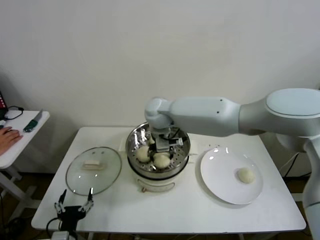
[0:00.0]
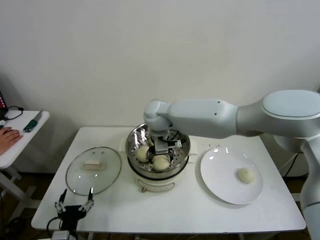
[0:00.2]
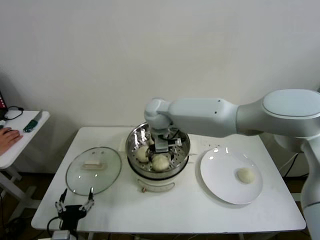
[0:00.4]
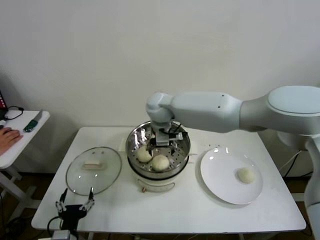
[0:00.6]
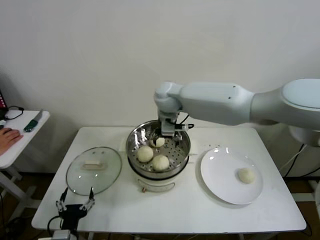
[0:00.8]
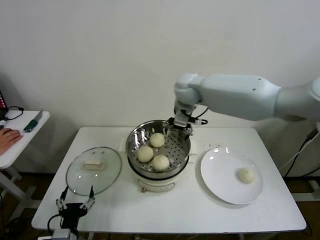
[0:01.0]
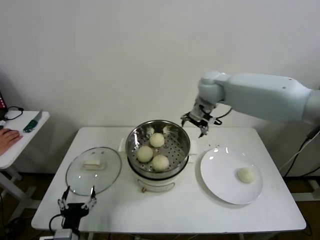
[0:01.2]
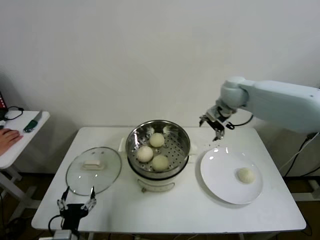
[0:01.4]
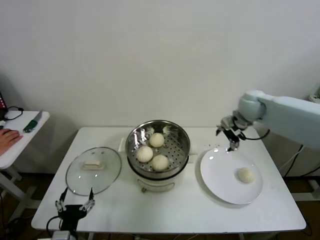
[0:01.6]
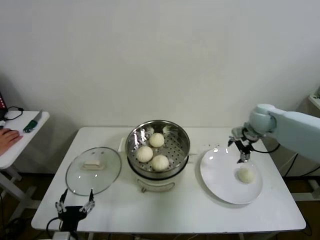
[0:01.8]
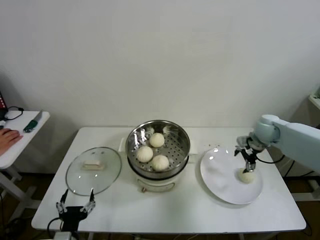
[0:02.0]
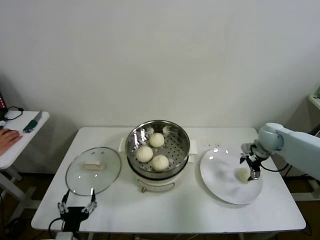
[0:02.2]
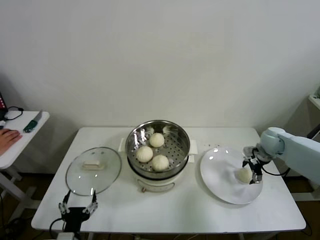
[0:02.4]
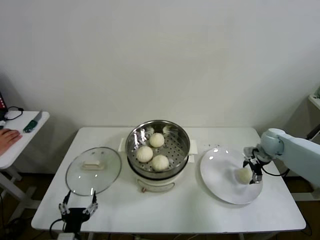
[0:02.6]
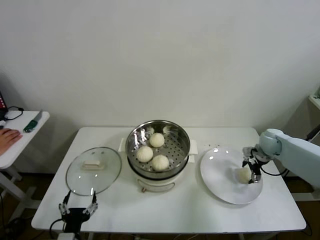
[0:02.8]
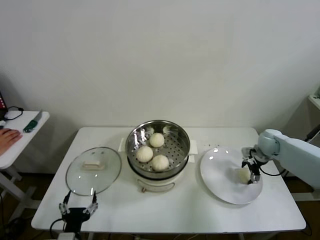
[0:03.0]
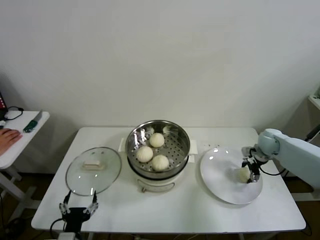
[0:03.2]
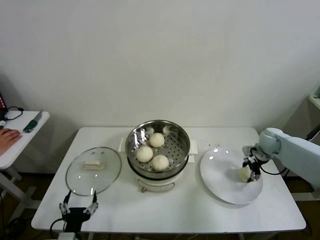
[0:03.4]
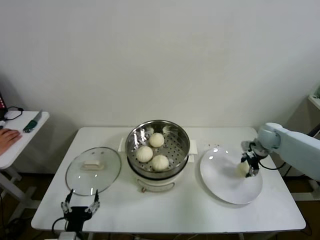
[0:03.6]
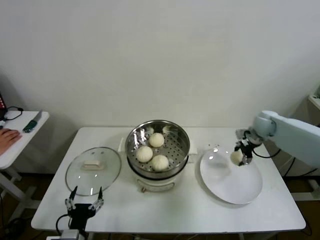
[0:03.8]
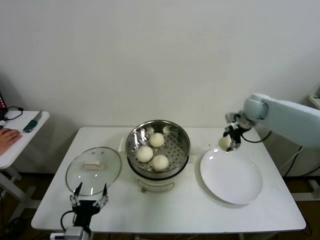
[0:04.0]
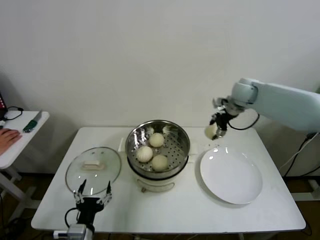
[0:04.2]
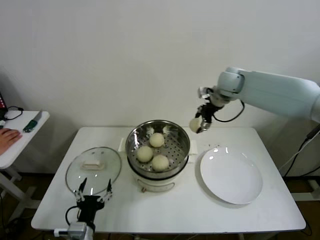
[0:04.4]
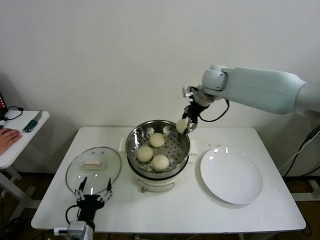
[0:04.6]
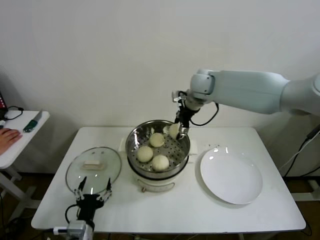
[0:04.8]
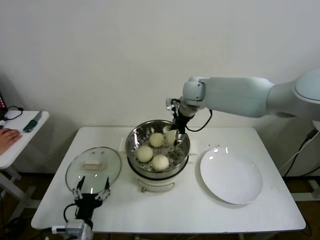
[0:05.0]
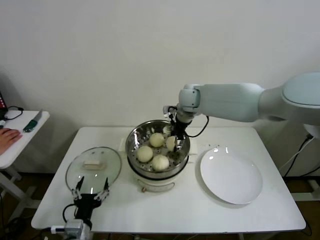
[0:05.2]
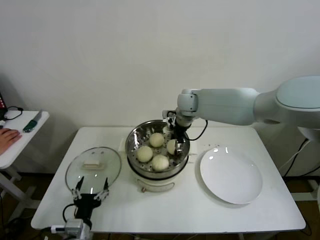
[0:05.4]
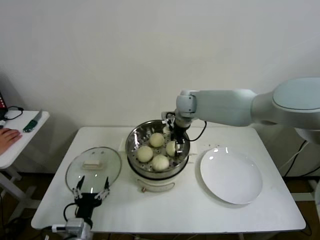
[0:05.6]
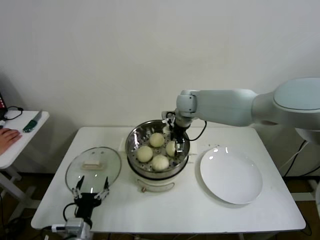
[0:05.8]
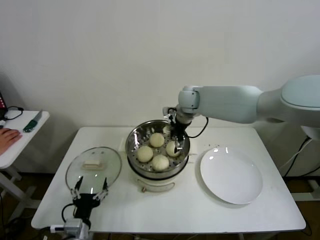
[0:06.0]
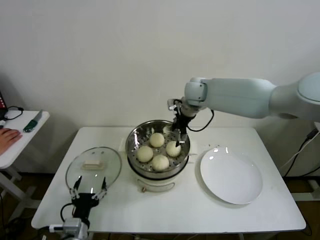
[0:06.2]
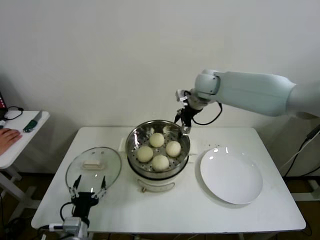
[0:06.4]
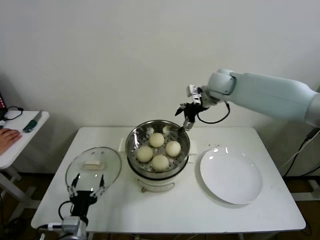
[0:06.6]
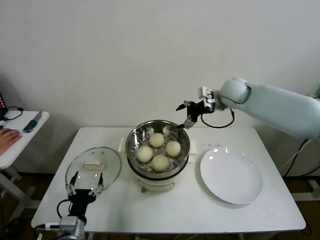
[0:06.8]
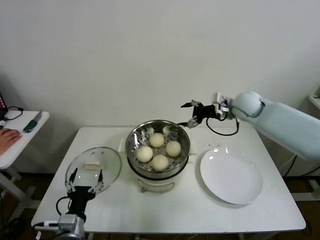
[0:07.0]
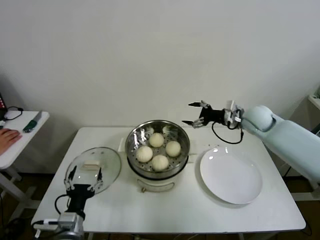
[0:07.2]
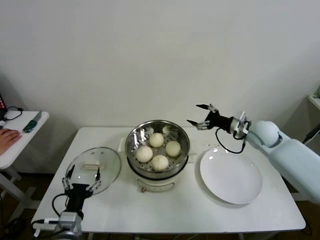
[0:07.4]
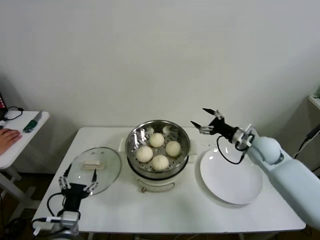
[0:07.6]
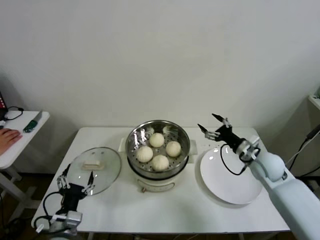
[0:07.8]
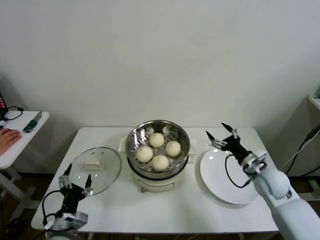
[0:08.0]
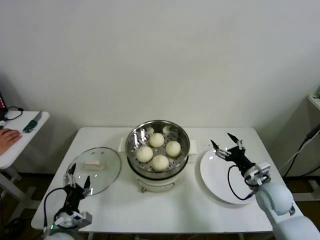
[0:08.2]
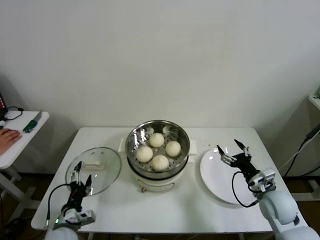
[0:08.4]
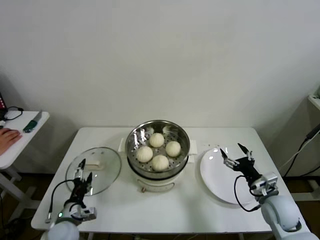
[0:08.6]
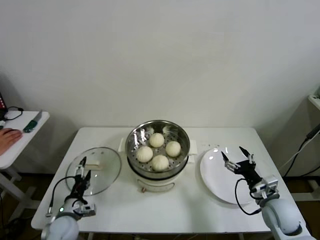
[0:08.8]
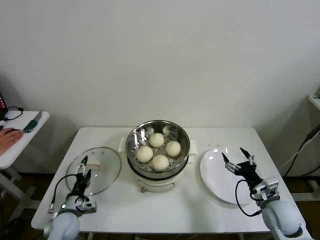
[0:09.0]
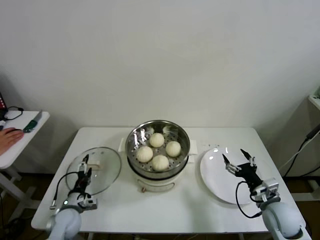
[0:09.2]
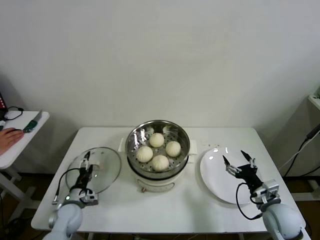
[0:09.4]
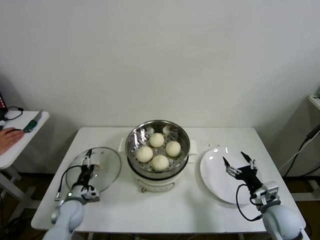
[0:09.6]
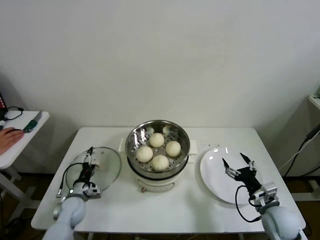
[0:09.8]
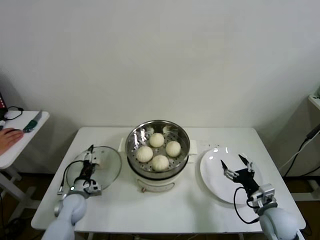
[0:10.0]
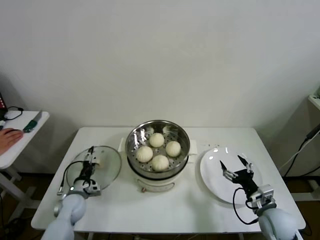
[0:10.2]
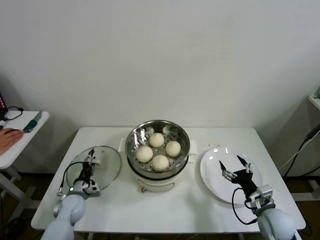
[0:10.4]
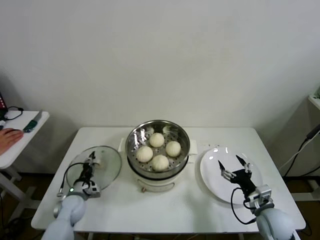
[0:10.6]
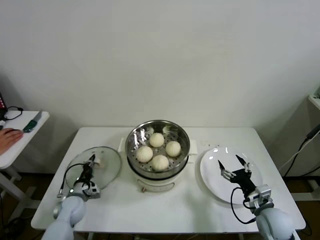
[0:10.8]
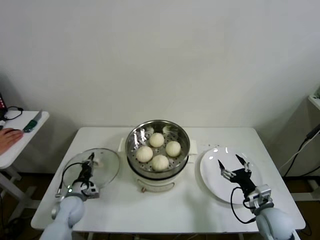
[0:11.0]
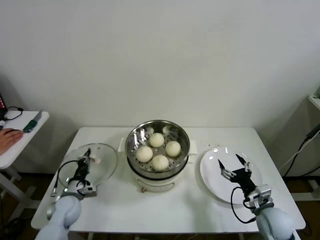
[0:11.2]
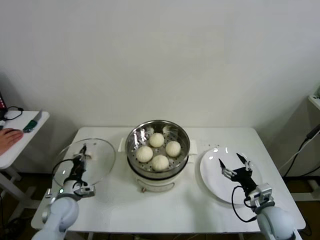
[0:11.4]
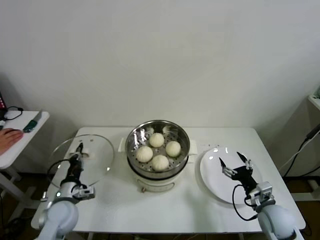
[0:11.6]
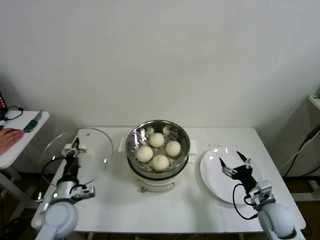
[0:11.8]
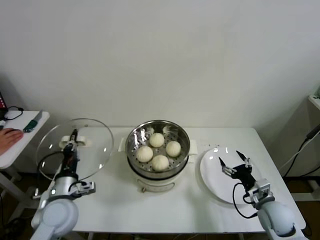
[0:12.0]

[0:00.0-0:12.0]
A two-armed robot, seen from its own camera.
Step, 0:00.4 to 0:03.2: Grasp the baozi in the plate with right gripper.
Step, 0:03.4 to 0:05.6: Place the baozi on the steamer with right gripper.
Step, 0:05.8 to 0:10.8: Grasp the pot lid with left gripper.
0:00.0 to 0:01.6: The right gripper heads to the right, covering approximately 35 cm, and opens up.
0:01.6 to 0:03.0: The right gripper moves downward and to the right, about 20 cm.
0:03.0 to 0:04.4: The right gripper shifts roughly 30 cm upward and to the left, and closes.
0:04.4 to 0:06.0: The right gripper moves to the left and downward, some 15 cm, and opens its fingers.
0:06.0 to 0:07.6: The right gripper heads to the right, backward and downward, covering roughly 30 cm.
0:07.6 to 0:09.0: The right gripper travels backward and downward by roughly 20 cm. The left gripper is displaced downward, forward and to the left by approximately 15 cm.
0:09.0 to 0:10.4: The left gripper goes some 10 cm forward.
0:10.4 to 0:12.0: The left gripper goes approximately 20 cm upward and backward, and closes its fingers.

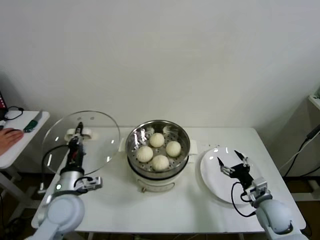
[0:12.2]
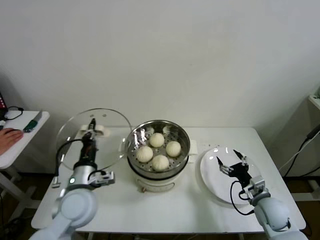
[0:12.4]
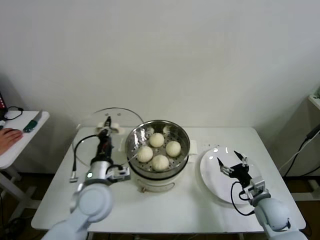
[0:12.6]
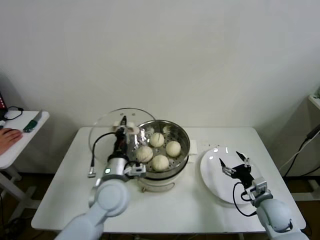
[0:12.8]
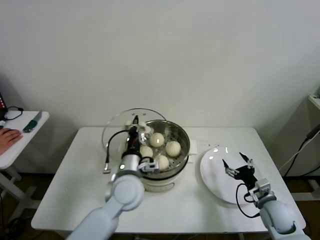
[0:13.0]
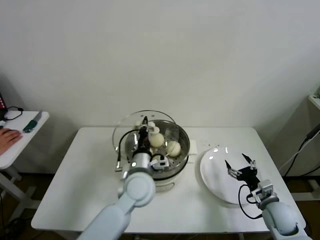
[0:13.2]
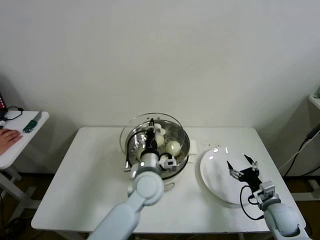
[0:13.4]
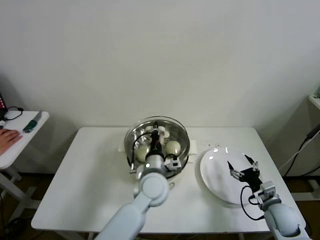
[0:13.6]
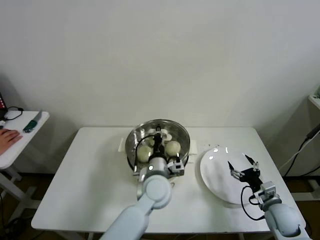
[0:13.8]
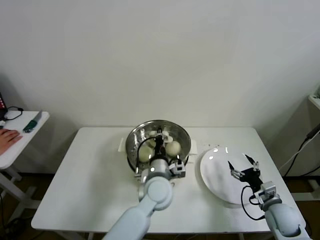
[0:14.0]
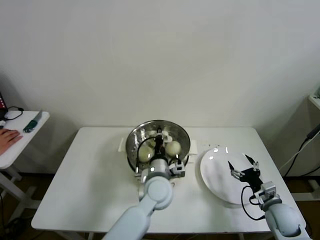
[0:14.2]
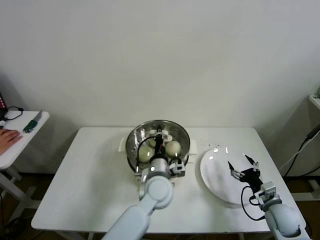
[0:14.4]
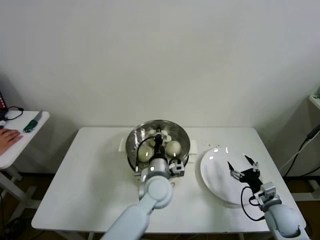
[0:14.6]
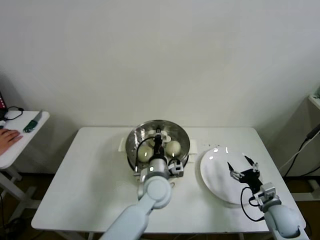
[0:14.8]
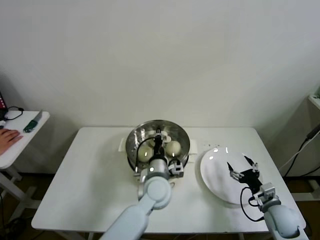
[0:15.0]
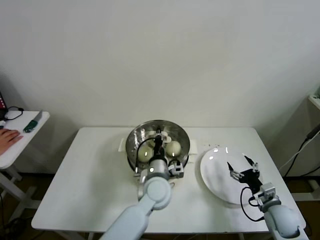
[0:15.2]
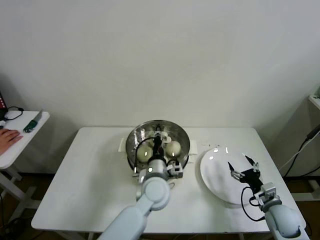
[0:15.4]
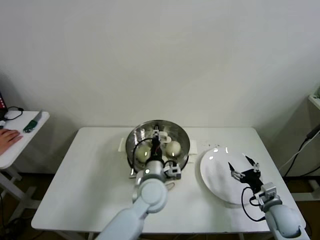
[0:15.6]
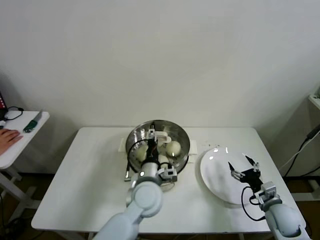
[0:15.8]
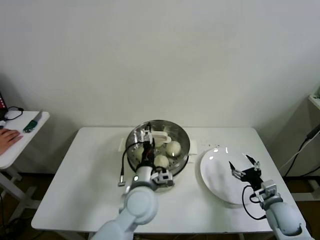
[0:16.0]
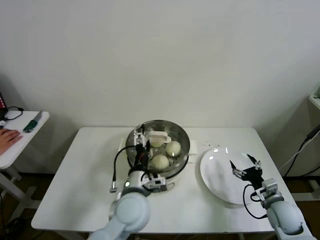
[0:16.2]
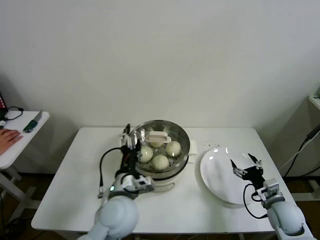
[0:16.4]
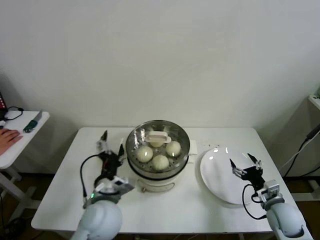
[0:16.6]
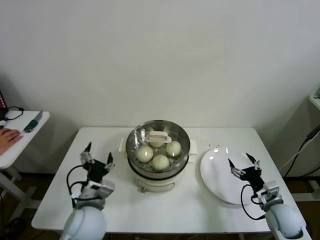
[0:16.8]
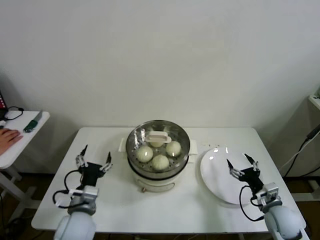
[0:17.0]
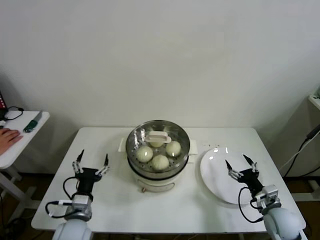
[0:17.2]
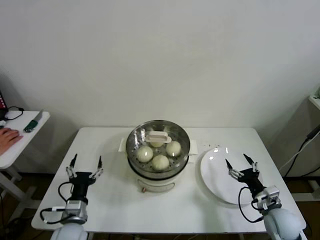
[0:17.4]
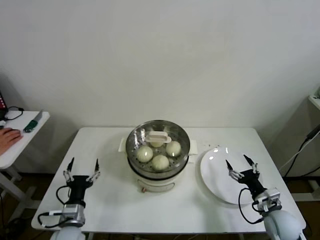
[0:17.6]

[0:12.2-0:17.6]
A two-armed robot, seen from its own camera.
Step, 0:12.2 to 0:15.4: Place the pot lid on the steamer with left gripper.
0:12.2 to 0:13.6: The left gripper is displaced to the right by about 25 cm.
0:13.6 to 0:15.0: The grippers make only small movements.
0:15.0 to 0:16.2: The left gripper goes some 10 cm backward and to the left, and opens up.
0:16.2 to 0:17.6: The left gripper shifts about 25 cm to the left and downward.

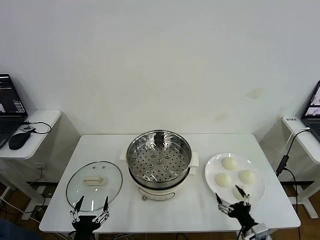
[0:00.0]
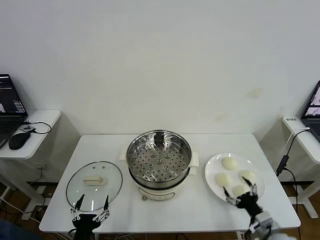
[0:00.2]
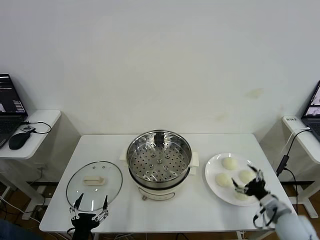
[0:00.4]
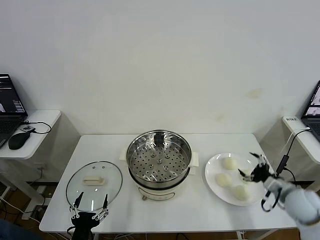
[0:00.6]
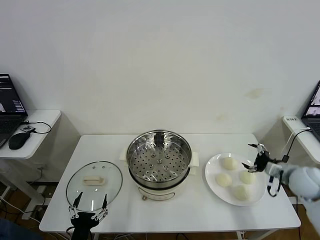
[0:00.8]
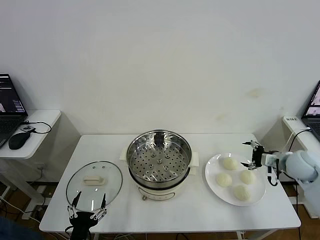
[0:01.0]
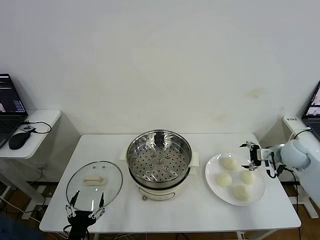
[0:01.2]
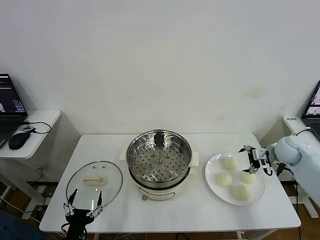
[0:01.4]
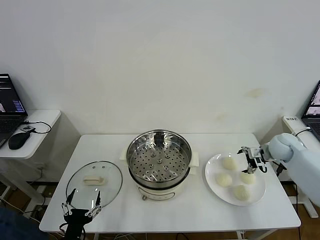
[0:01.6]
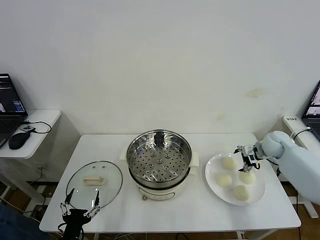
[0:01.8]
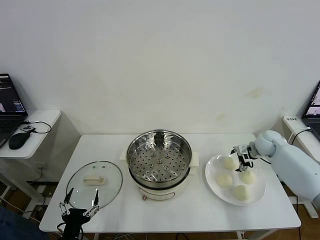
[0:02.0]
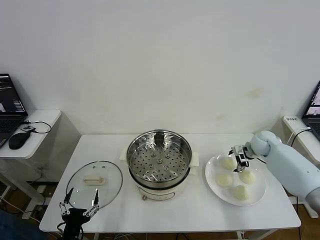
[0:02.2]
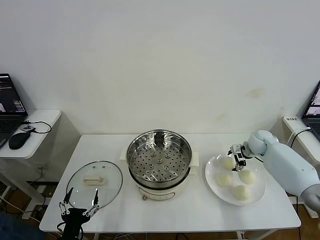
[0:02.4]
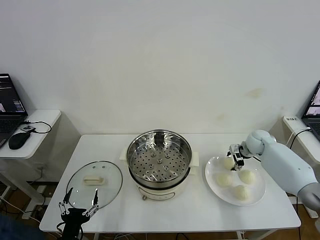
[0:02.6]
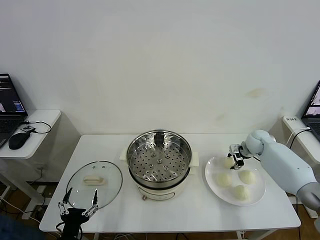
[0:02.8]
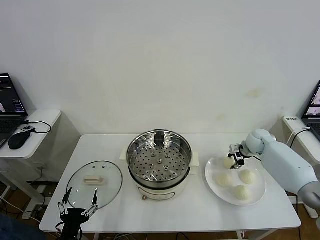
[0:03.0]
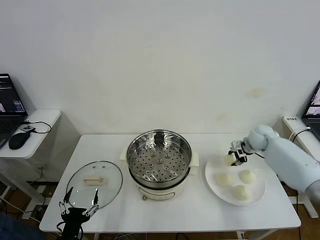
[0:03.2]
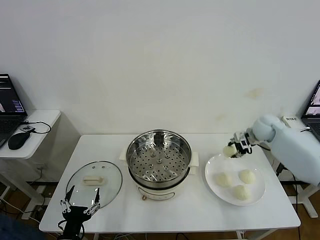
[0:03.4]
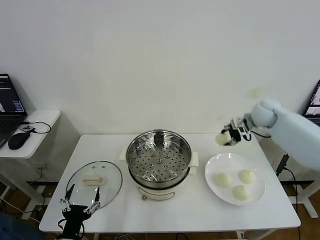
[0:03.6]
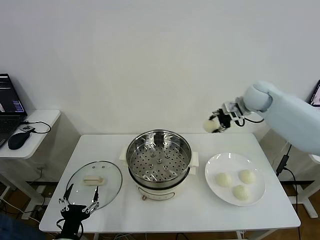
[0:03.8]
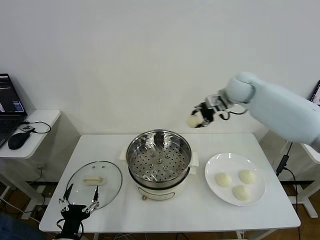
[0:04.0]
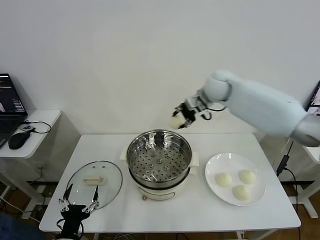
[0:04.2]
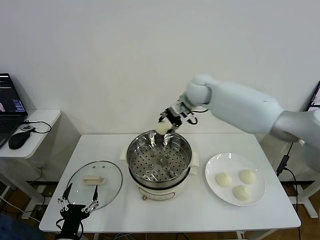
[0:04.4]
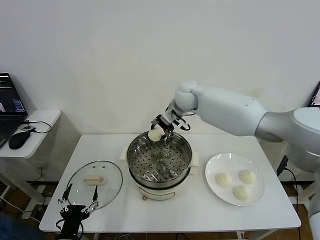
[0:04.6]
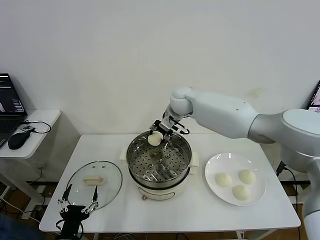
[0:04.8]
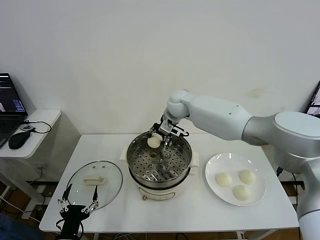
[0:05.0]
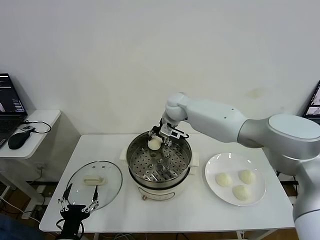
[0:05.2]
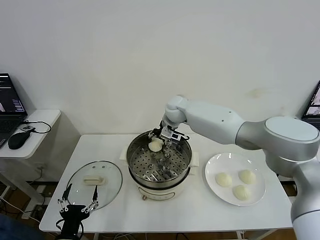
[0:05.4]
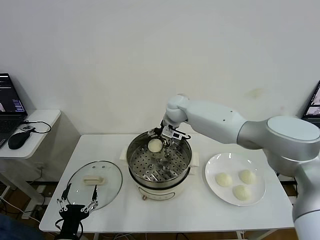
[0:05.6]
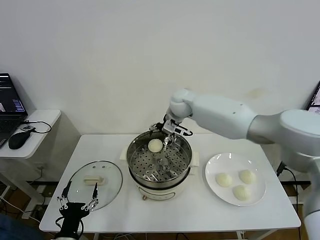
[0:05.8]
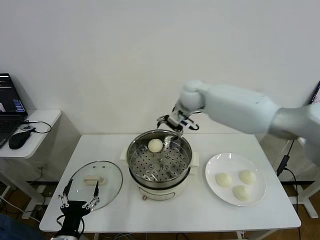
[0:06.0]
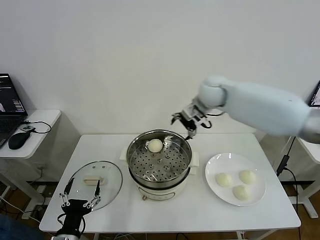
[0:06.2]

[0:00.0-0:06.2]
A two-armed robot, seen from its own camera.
Step, 0:00.0 to 0:02.8: Grasp the baozi in the plate with right gripper.
Step, 0:03.2 to 0:05.6: Place the baozi on the steamer with right gripper.
0:01.6 to 0:03.2: The right gripper shifts by approximately 5 cm, and closes up.
0:03.2 to 0:04.6: The right gripper is displaced to the left by approximately 30 cm.
0:04.6 to 0:06.2: The right gripper travels to the right and upward by roughly 15 cm, and opens its fingers.
